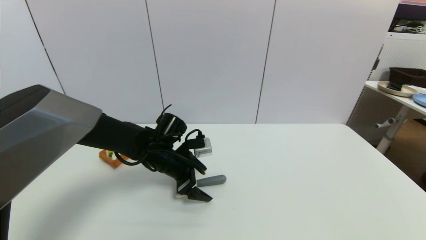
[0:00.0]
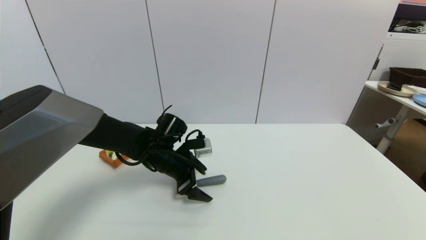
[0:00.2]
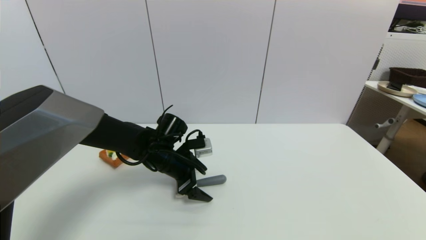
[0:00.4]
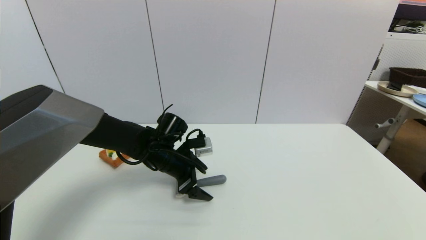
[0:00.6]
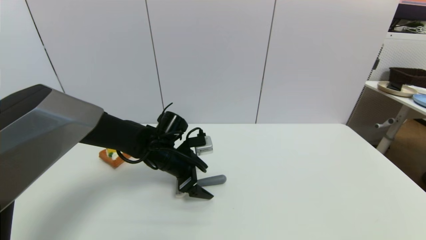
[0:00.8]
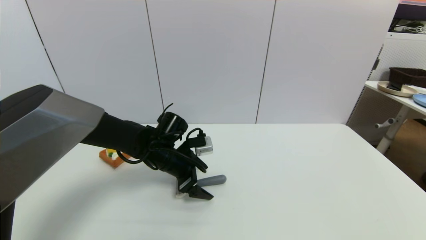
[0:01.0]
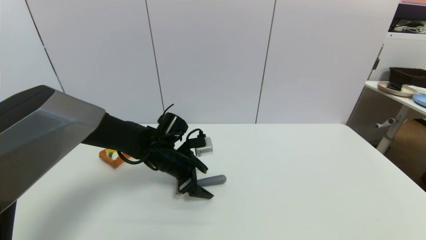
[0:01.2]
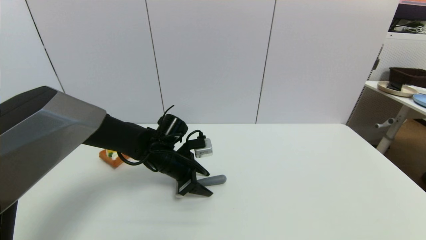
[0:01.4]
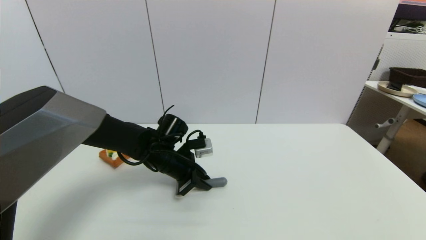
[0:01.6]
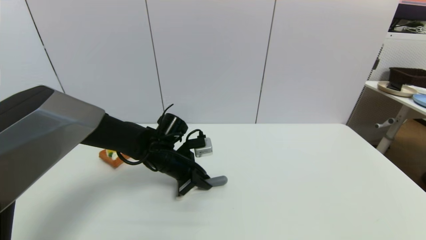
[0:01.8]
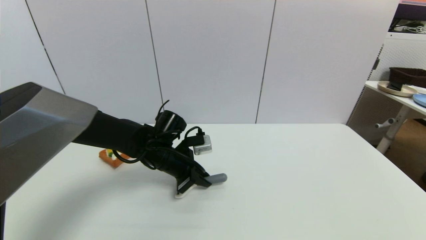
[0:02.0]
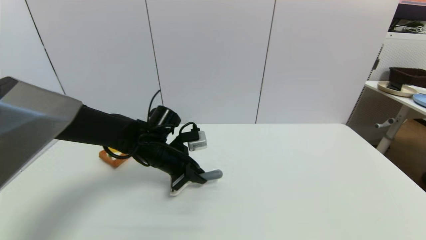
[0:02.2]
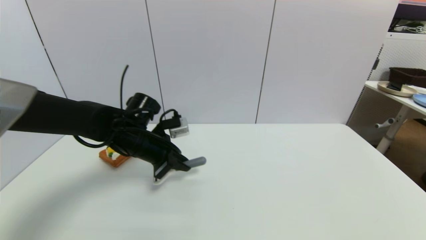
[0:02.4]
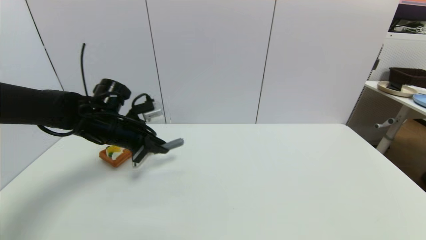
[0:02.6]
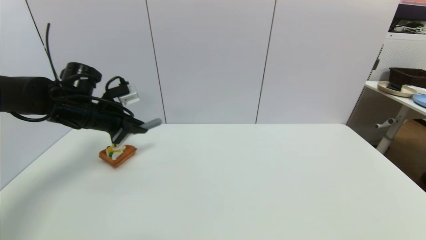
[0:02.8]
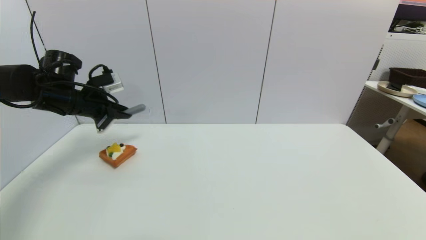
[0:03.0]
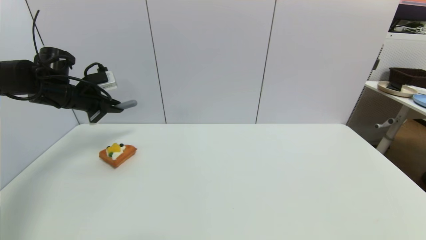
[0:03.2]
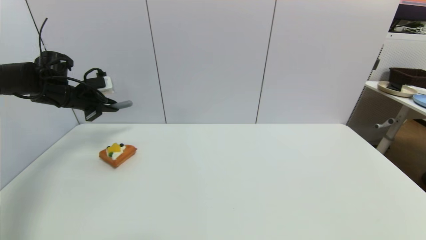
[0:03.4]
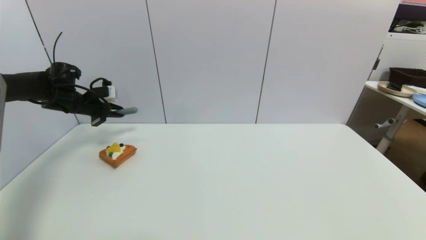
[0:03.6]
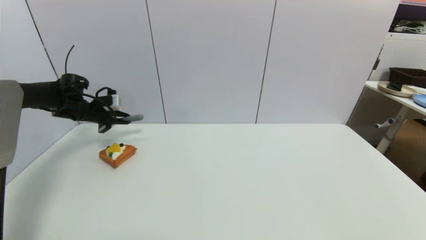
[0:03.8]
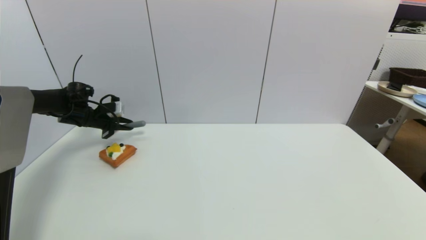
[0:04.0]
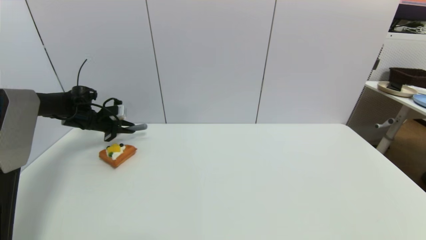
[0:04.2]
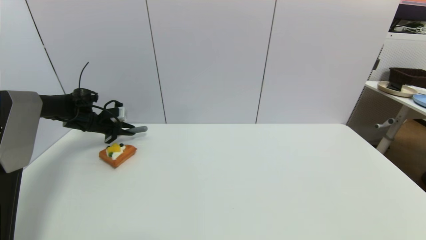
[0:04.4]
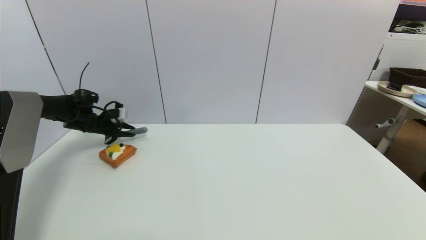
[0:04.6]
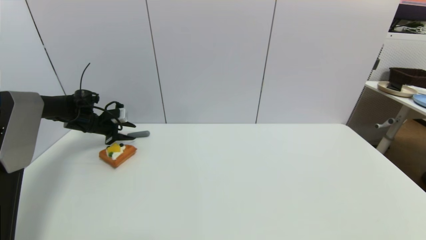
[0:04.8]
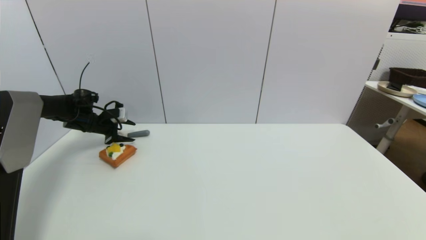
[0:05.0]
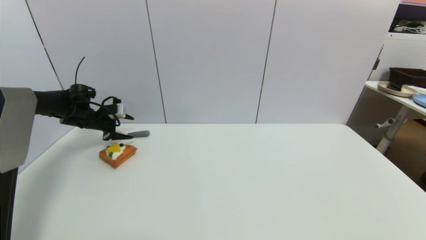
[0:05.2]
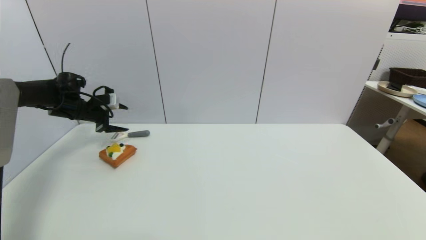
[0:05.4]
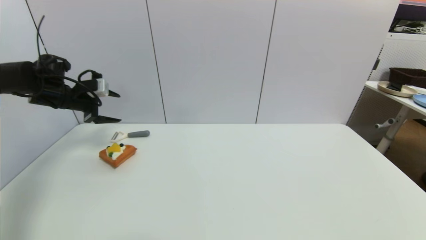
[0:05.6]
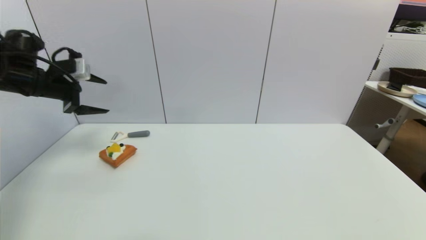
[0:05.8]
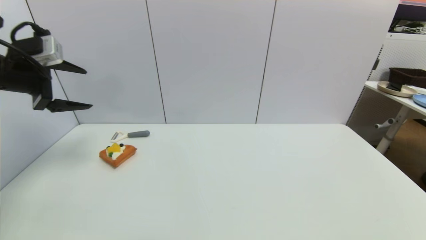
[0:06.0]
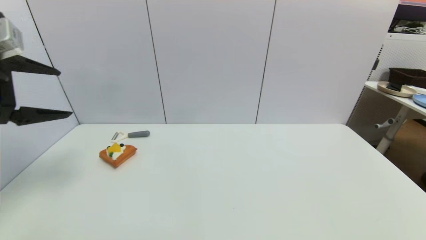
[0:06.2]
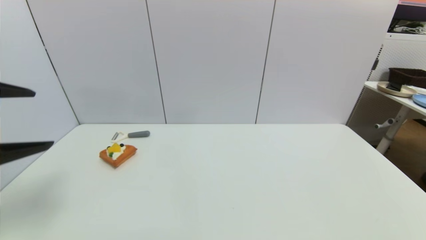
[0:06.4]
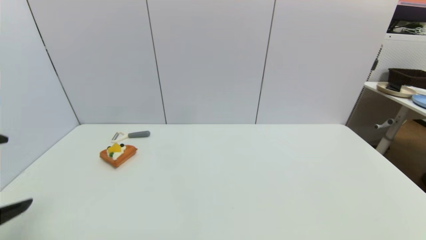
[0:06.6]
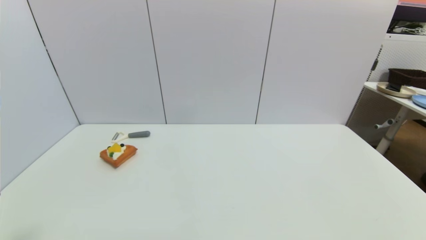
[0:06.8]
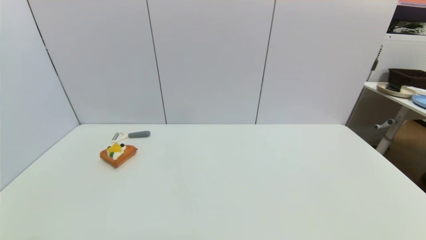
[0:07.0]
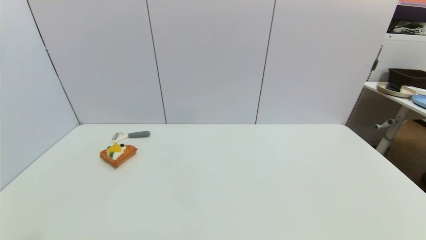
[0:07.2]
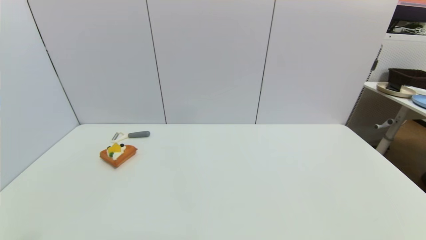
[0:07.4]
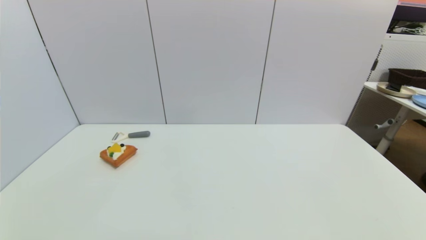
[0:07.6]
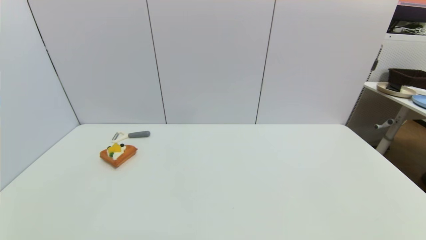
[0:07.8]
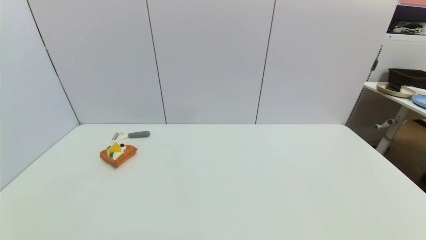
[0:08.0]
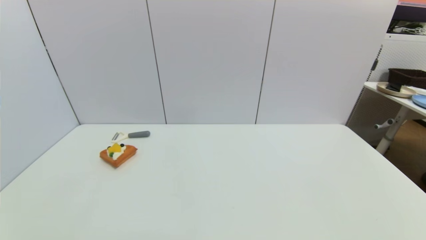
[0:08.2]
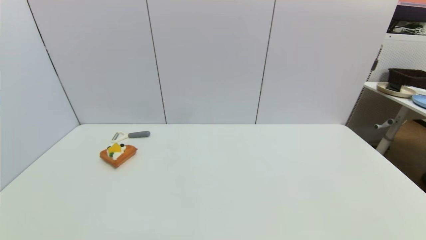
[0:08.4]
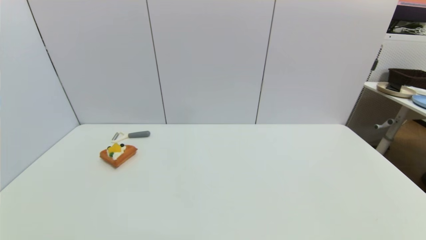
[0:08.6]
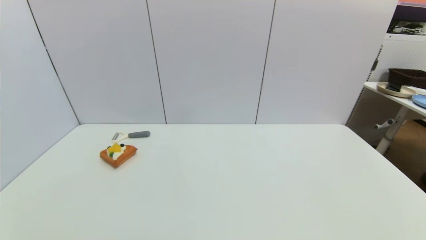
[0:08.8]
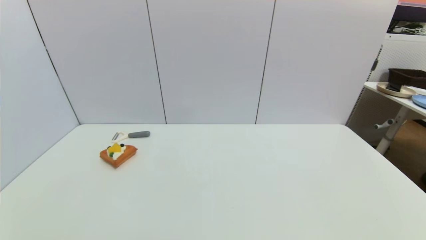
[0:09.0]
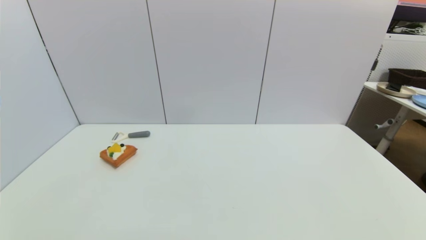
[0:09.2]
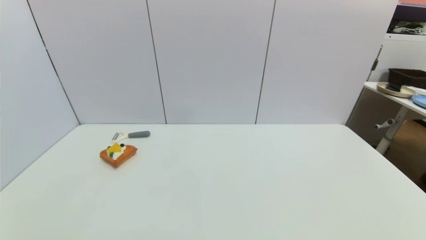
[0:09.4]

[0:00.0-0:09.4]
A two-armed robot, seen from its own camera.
Step, 0:00.0 to 0:02.2: Grasp the peeler with left gripper.
Step, 0:02.4 to 0:05.2: Place the peeler on the table with left gripper.
0:00.0 to 0:01.6: The left gripper closes.
0:01.6 to 0:03.2: The left gripper travels to the left and upward by roughly 30 cm.
0:03.2 to 0:04.8: The left gripper moves downward and forward, some 15 cm, and opens its fingers.
0:04.8 to 0:06.2: The left gripper goes about 35 cm backward and upward, and opens up.
0:06.2 to 0:07.8: The left gripper travels downward and backward by roughly 30 cm.
